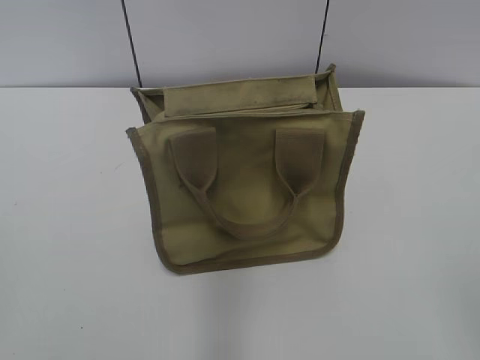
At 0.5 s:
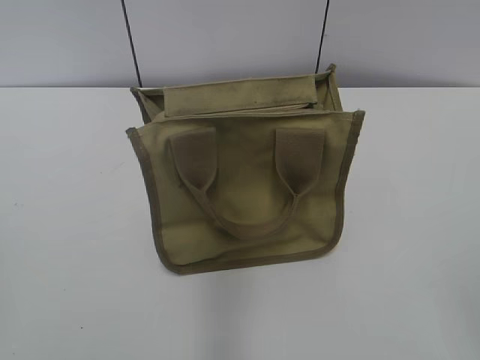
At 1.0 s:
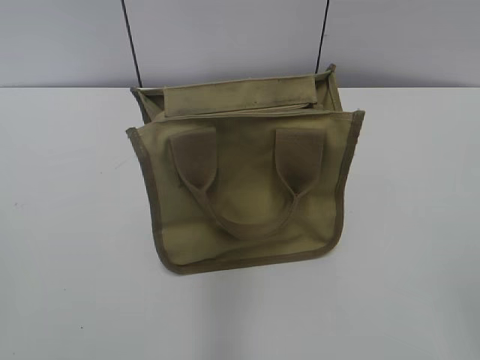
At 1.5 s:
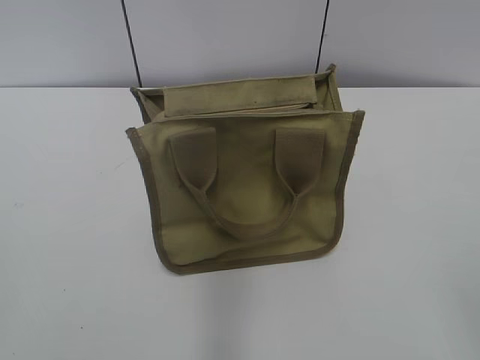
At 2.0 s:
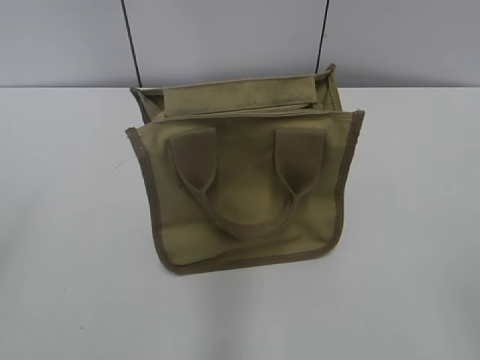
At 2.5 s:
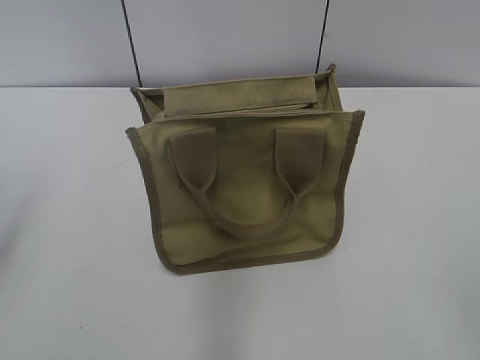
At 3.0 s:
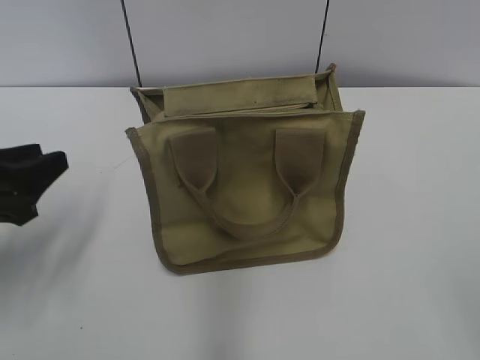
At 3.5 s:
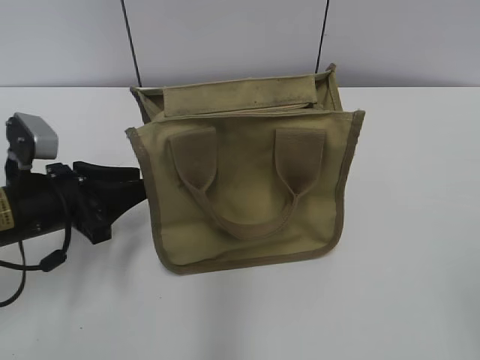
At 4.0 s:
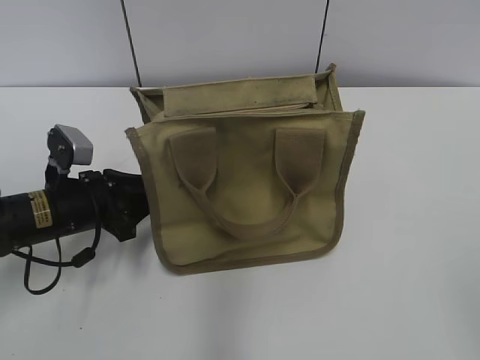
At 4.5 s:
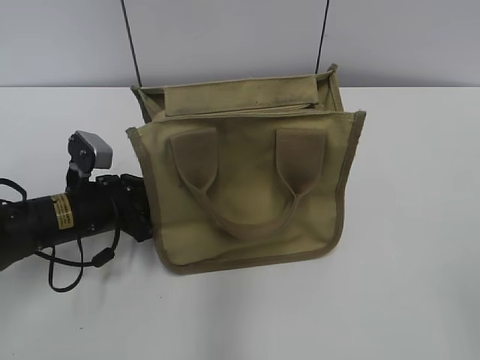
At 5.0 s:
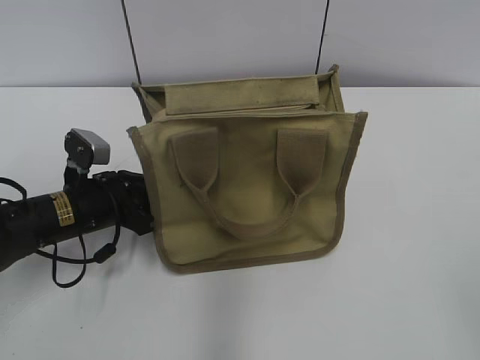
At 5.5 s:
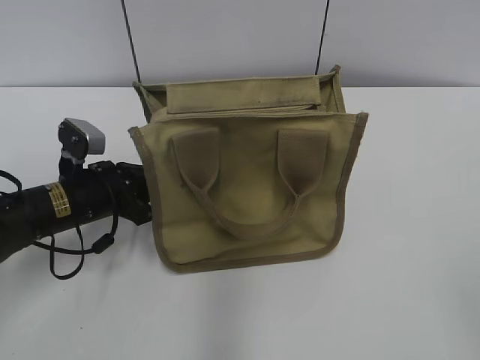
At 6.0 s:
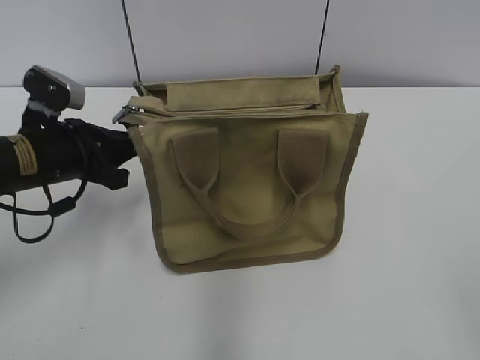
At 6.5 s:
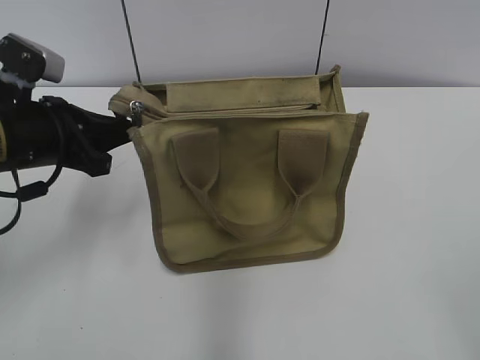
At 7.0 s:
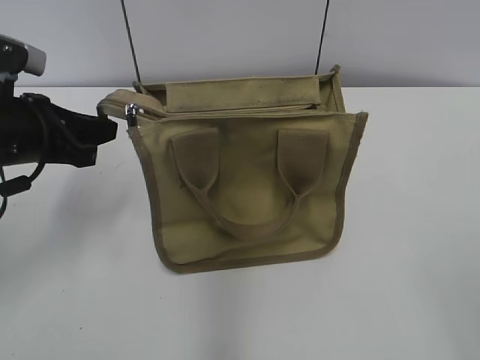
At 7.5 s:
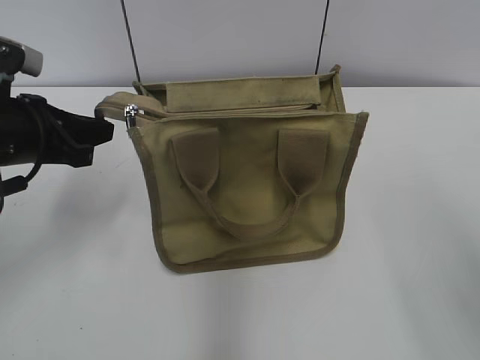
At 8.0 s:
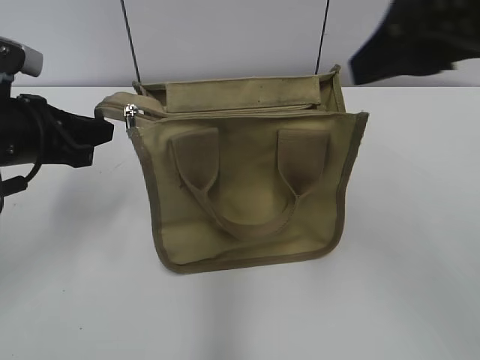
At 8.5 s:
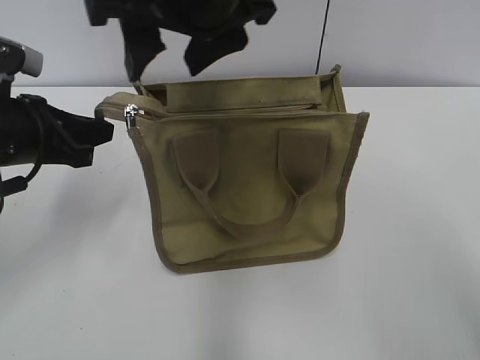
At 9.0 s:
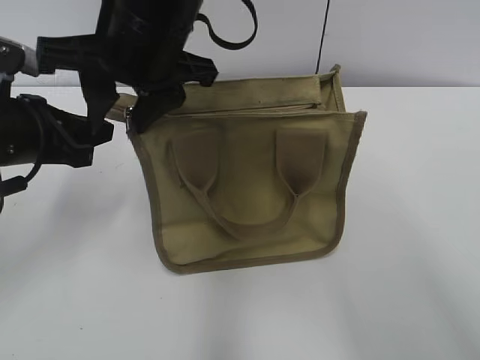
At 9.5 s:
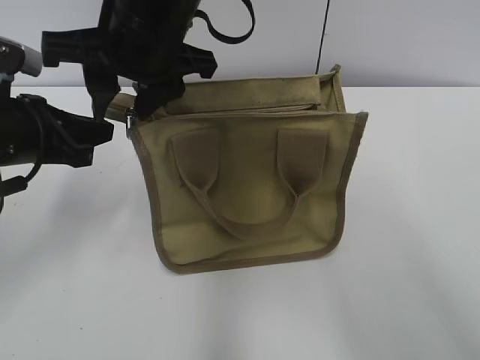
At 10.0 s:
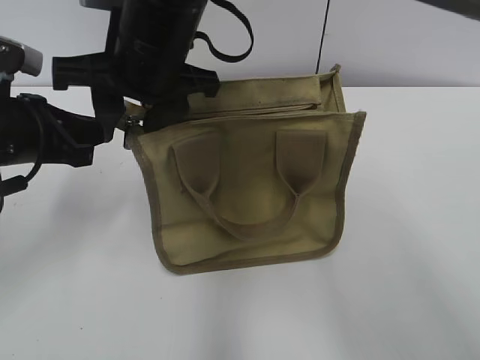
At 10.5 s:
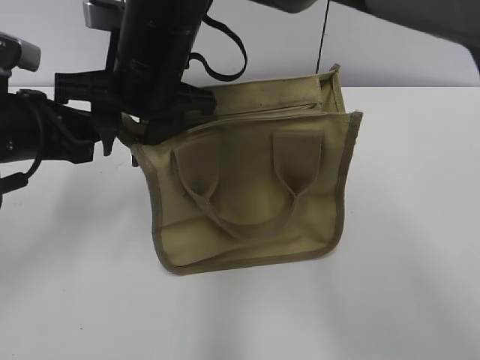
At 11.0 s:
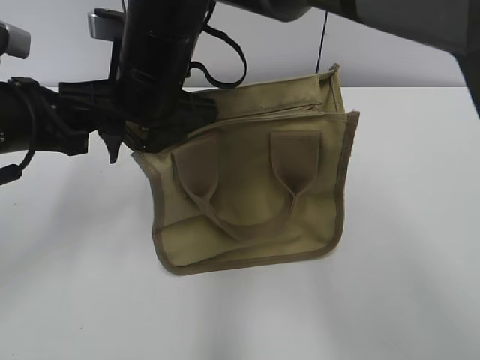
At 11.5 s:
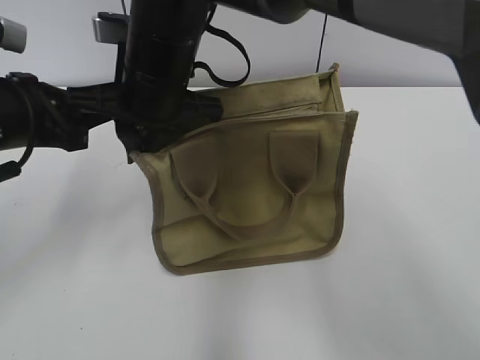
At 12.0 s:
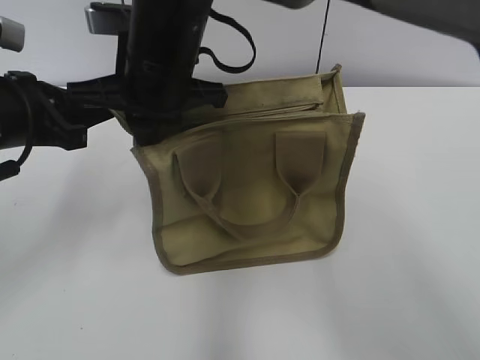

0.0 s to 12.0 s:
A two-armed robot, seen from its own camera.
2.0 to 4.0 s: The left gripper shifts about 35 cm forward, downward and to the right, and closes up.
4.0 to 6.0 s: The left gripper goes some 5 cm upward, and closes its fingers.
6.0 to 8.0 s: The right gripper goes some 25 cm forward and to the left; the left gripper travels upward by roughly 5 cm.
8.0 to 10.0 s: The right gripper is displaced to the left by roughly 25 cm.
10.0 to 12.0 s: The right gripper closes.

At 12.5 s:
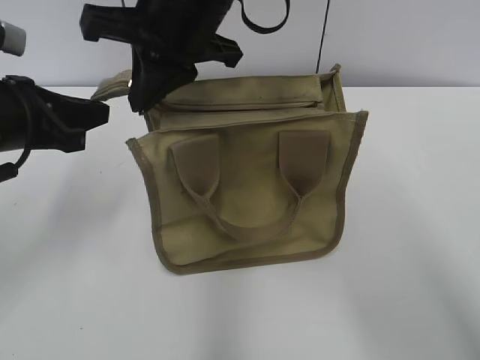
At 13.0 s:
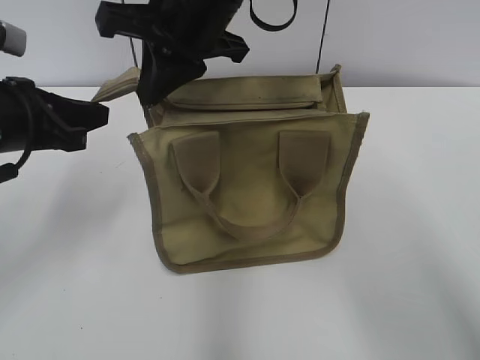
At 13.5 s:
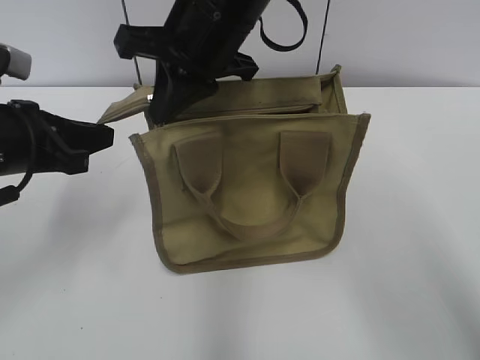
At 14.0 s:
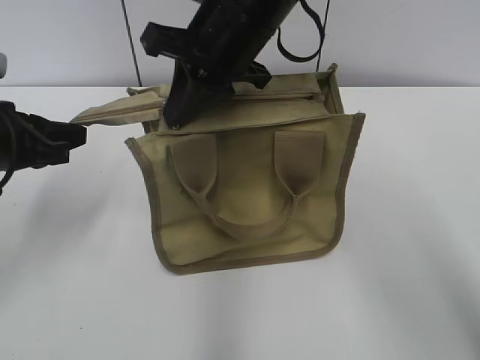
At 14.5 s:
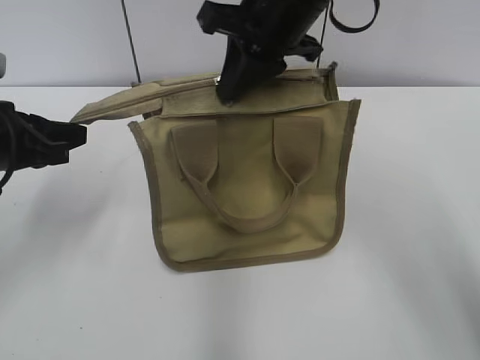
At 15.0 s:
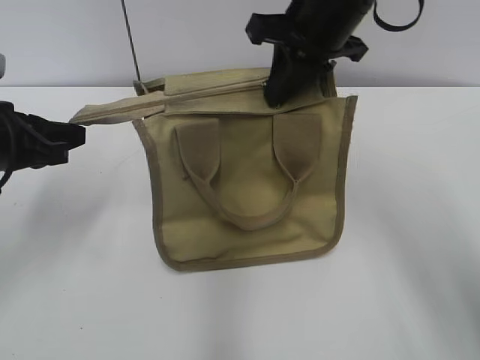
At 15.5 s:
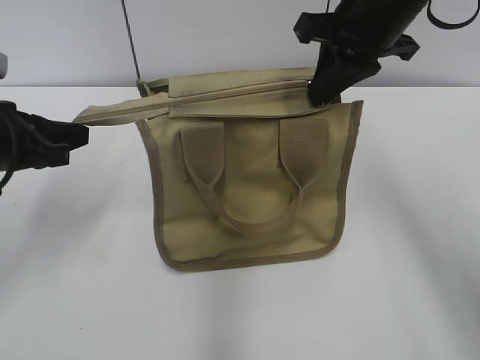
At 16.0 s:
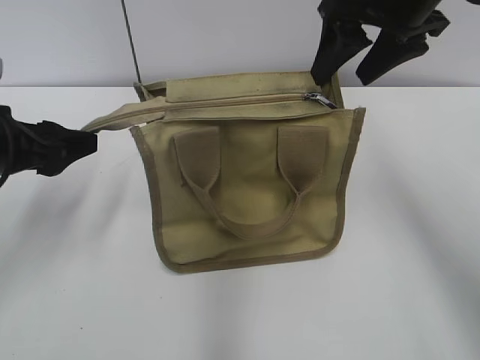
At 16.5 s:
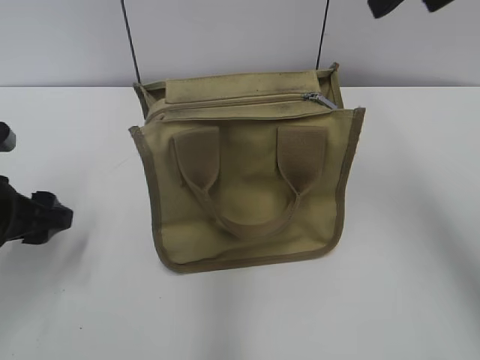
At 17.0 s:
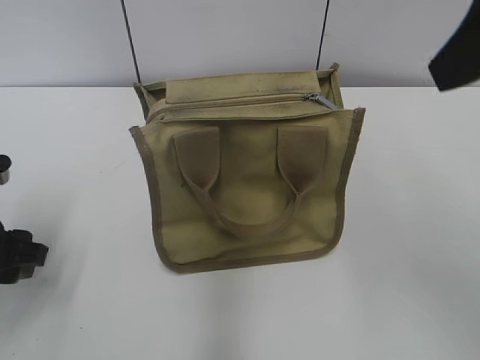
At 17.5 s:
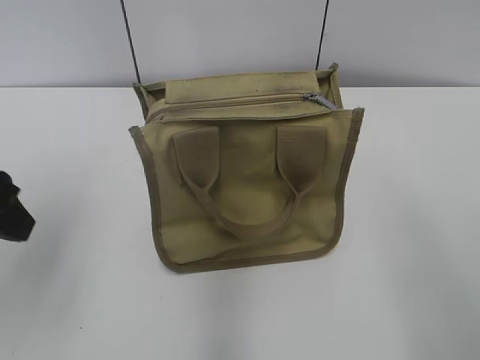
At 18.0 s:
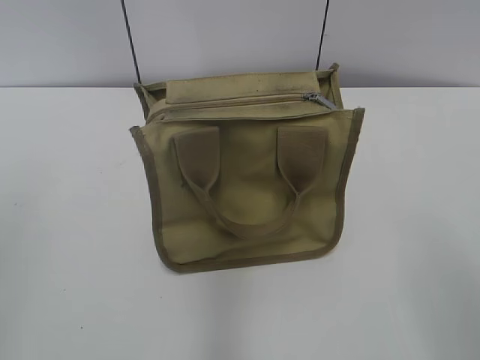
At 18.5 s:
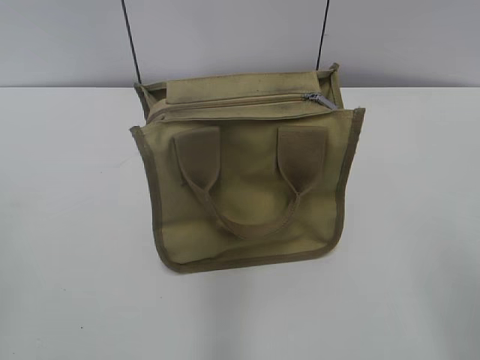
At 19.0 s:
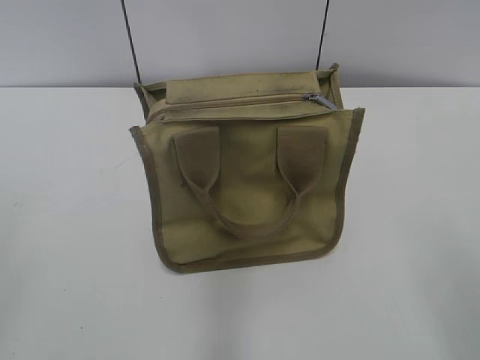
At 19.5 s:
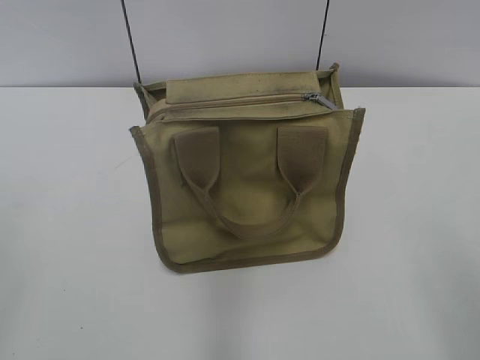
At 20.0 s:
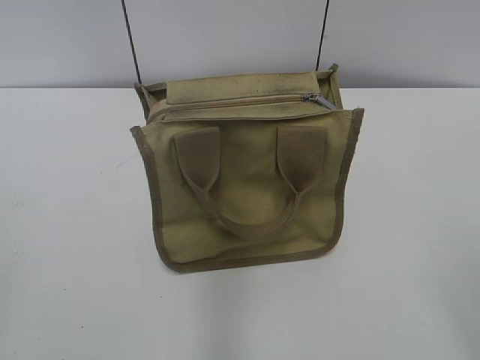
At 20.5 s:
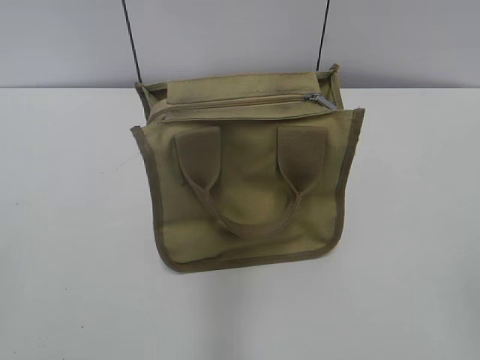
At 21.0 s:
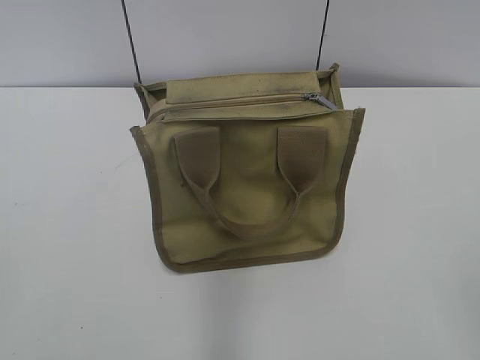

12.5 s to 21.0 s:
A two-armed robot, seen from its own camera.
Step, 12.5 to 15.5 s: Zip up the bag with your right hand.
12.5 to 14.5 s: The right gripper shifts approximately 10 cm to the right.
14.5 to 16.5 s: The right gripper is displaced to the right, upward and backward by approximately 15 cm, and opens its fingers, while the left gripper shifts by about 5 cm, and opens its fingers.
16.5 to 19.0 s: The right gripper moves backward and downward, roughly 30 cm. The left gripper shifts roughly 25 cm backward and upward.

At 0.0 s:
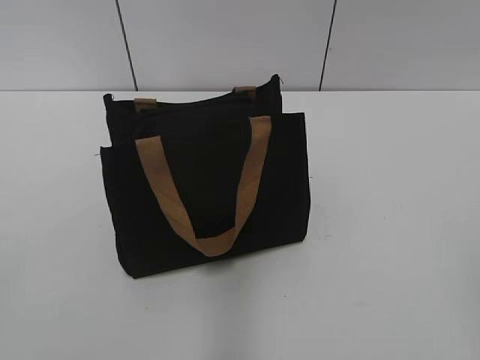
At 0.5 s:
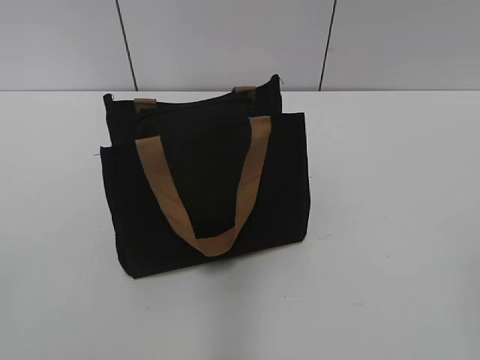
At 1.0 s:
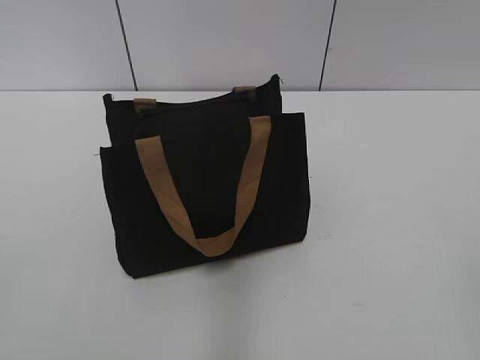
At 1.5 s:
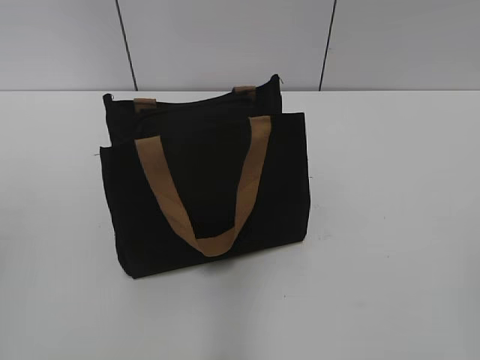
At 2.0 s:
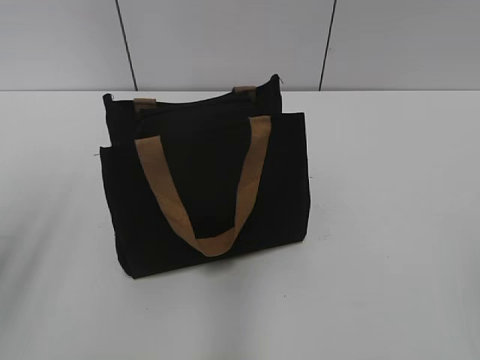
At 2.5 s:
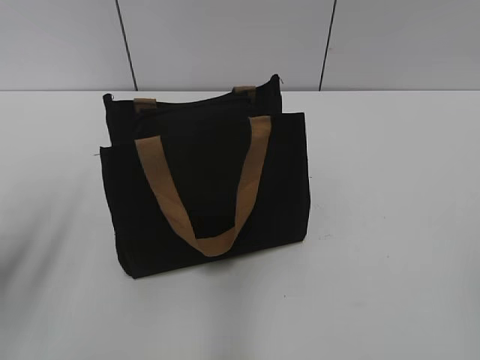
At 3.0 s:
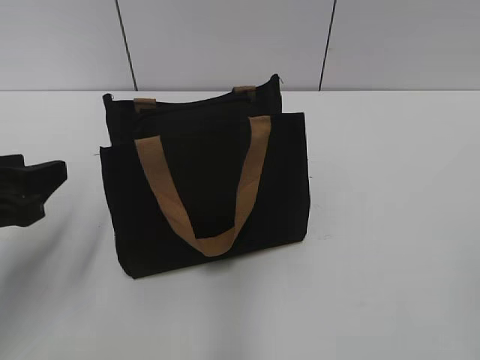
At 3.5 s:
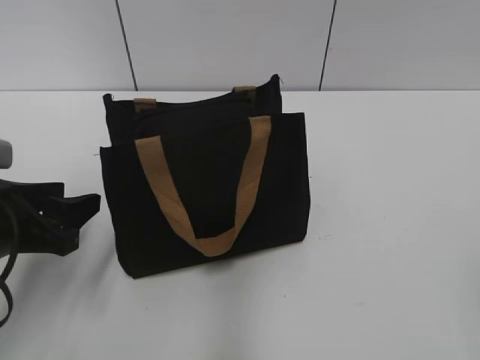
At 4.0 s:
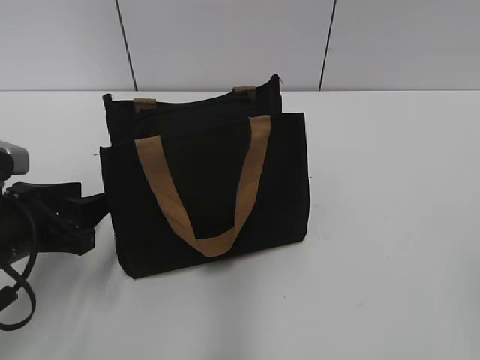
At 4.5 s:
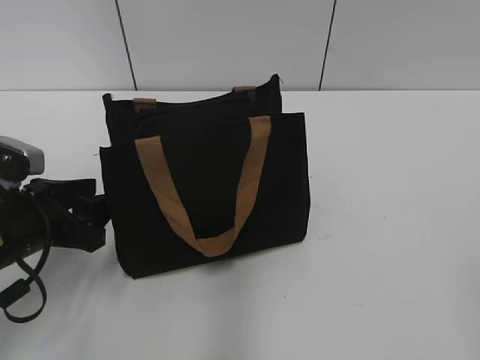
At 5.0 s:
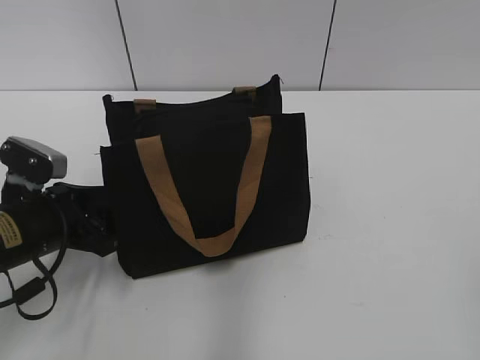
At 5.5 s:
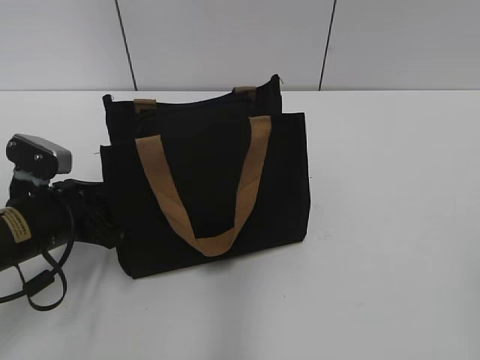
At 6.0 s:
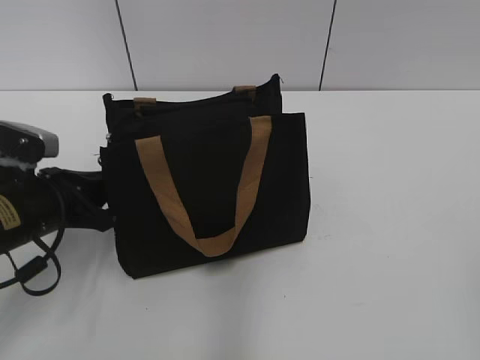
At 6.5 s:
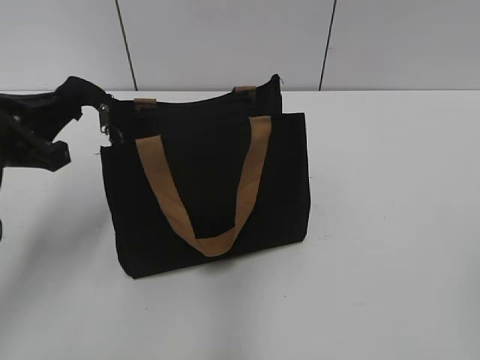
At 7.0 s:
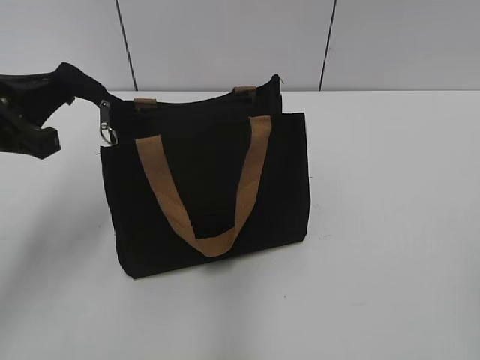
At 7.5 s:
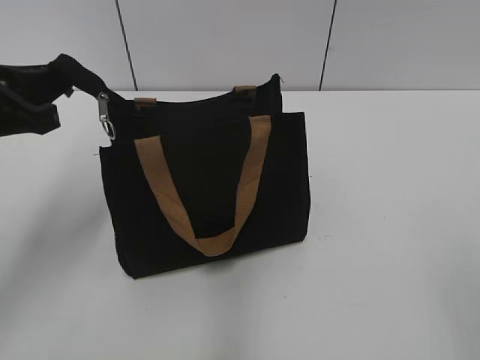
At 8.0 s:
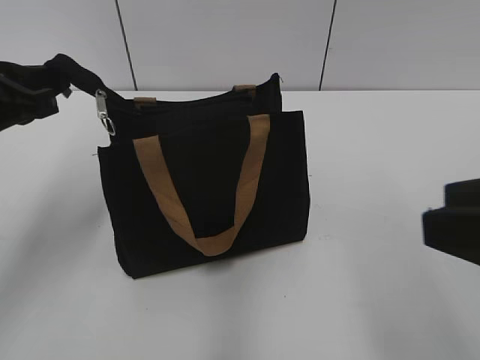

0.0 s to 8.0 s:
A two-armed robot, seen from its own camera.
2.0 to 4.0 s: The left gripper moves downward and forward, approximately 20 cm.
4.0 to 6.0 s: The left gripper closes its fingers.
6.0 to 8.0 s: The left gripper heads upward, covering about 15 cm. The right gripper heads forward and to the left, covering about 10 cm.
